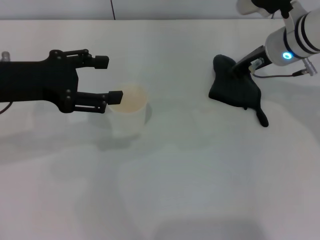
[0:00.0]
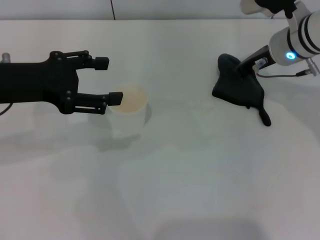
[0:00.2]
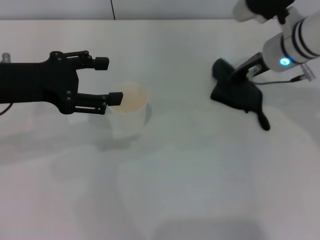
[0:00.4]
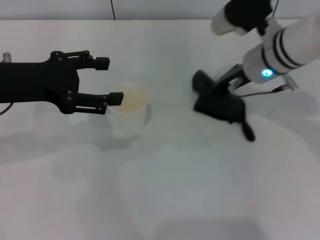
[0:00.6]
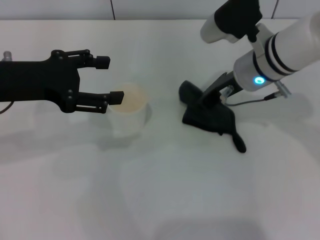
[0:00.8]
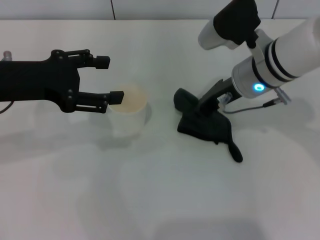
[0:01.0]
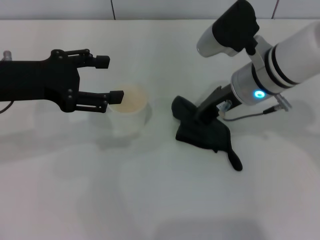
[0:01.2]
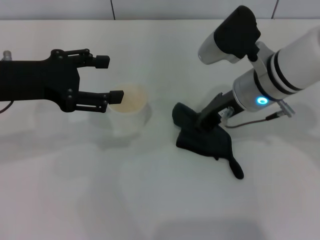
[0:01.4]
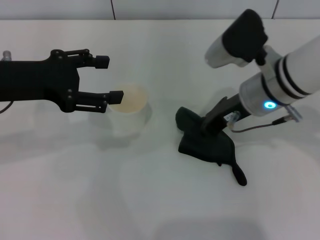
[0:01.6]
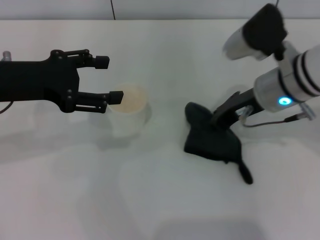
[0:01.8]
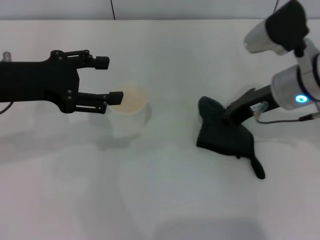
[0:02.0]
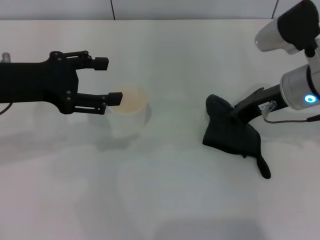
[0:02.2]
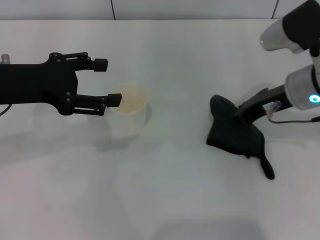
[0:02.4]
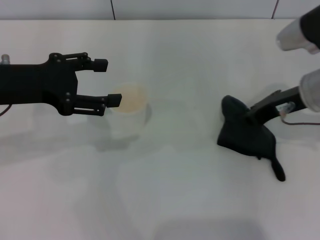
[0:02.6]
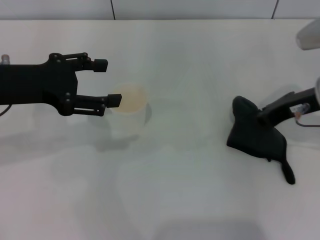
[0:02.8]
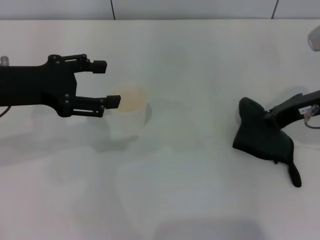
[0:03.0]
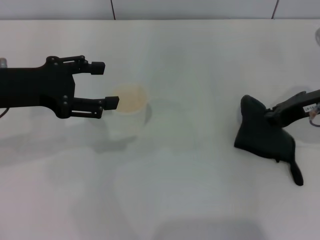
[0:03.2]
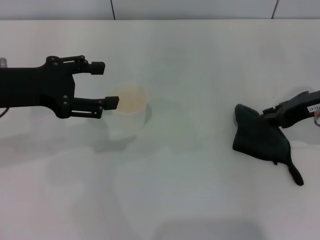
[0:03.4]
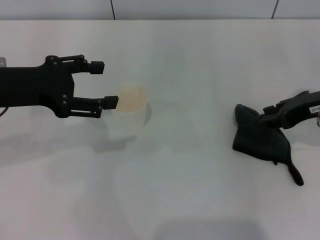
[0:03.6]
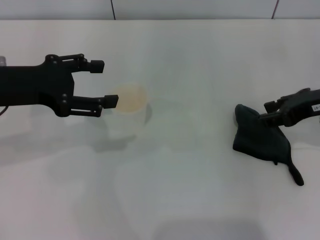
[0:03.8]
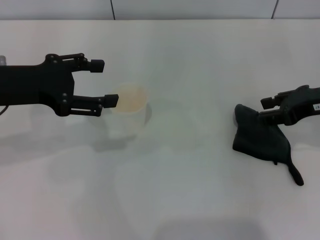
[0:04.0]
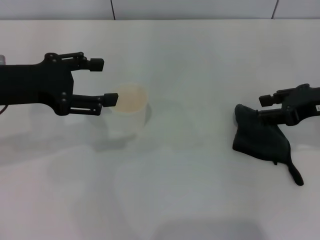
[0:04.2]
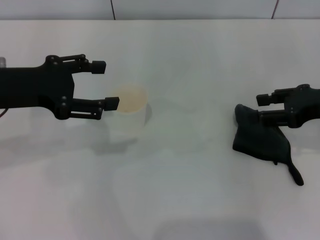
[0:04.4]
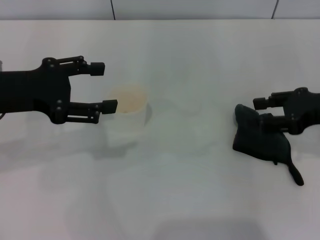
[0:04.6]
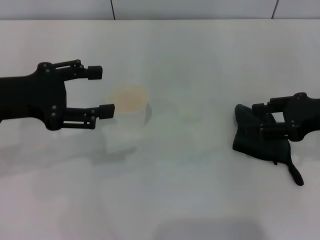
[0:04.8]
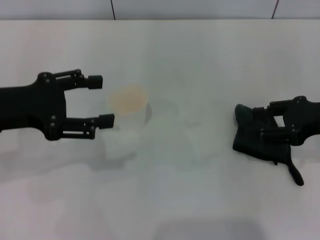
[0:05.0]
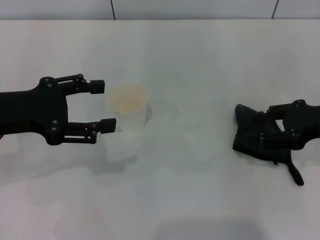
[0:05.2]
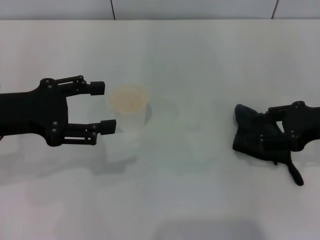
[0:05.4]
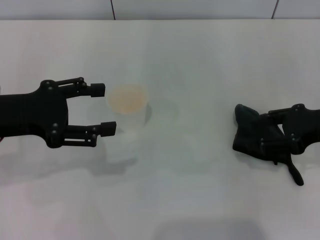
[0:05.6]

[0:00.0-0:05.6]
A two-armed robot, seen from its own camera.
Step, 0:01.0 to 0:03.8: Place the rag on the table with the right gripper.
0:00.0 to 0:01.4: The right gripper is displaced backward and to the left by roughly 10 cm.
0:01.4 to 0:02.8: The right gripper travels to the right by about 10 cm.
0:02.8 to 0:04.2: The right gripper opens its fingers.
0:04.2 to 0:05.6: There are only small adjustments of the grippers.

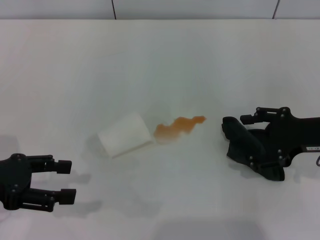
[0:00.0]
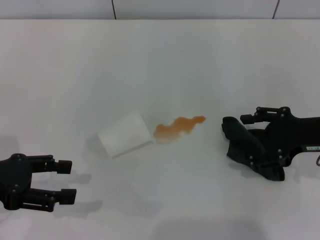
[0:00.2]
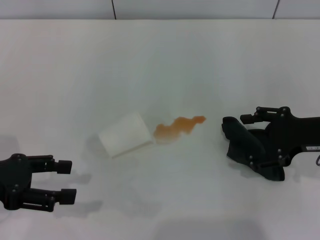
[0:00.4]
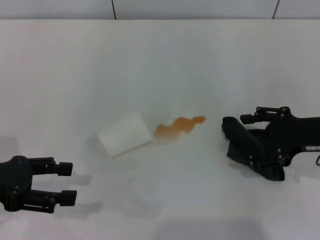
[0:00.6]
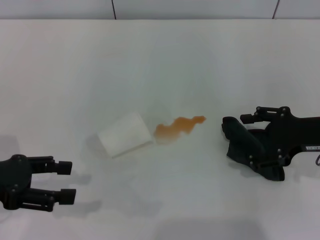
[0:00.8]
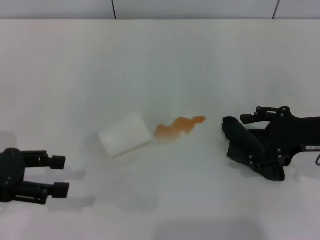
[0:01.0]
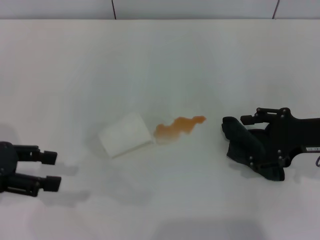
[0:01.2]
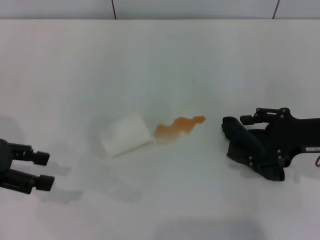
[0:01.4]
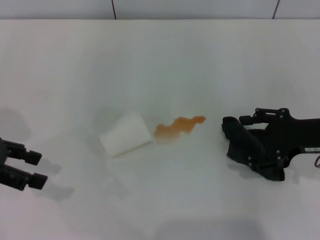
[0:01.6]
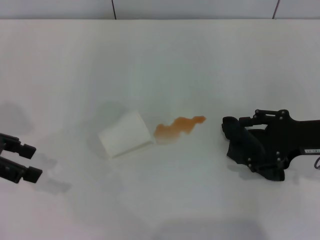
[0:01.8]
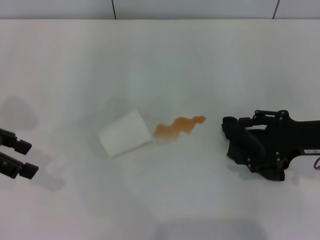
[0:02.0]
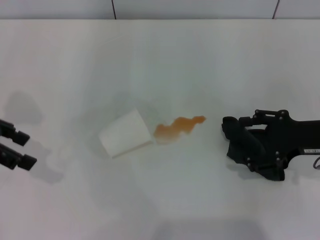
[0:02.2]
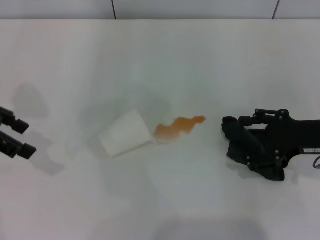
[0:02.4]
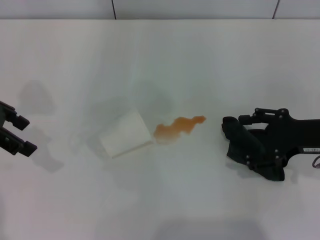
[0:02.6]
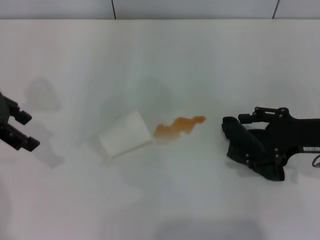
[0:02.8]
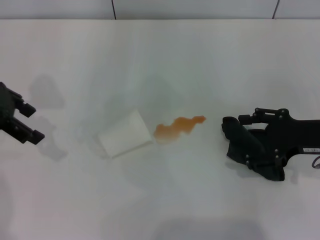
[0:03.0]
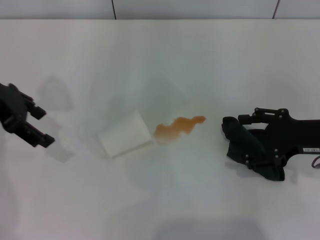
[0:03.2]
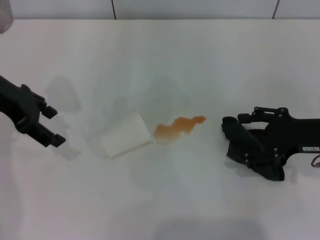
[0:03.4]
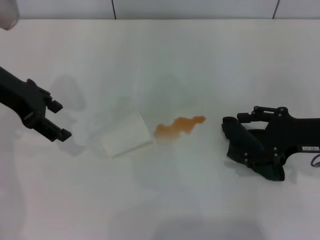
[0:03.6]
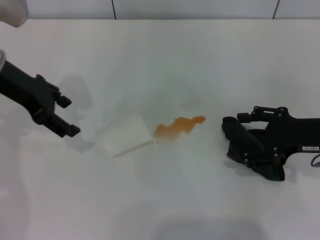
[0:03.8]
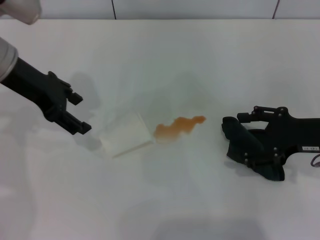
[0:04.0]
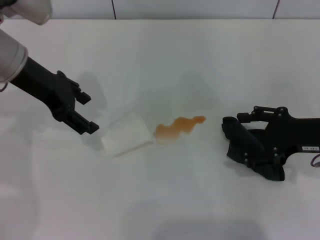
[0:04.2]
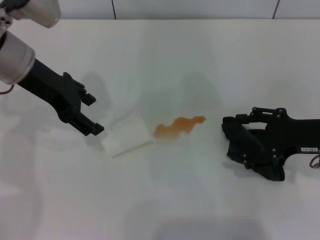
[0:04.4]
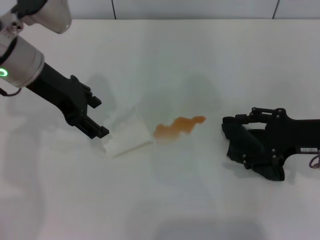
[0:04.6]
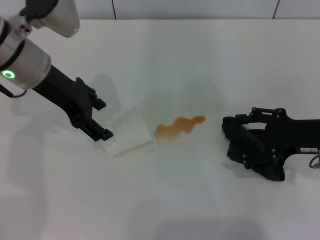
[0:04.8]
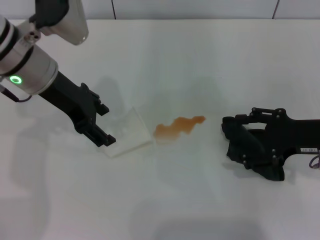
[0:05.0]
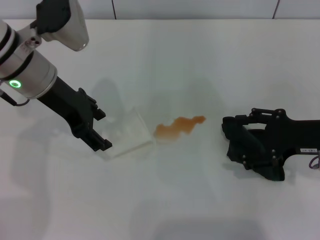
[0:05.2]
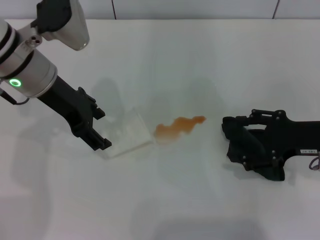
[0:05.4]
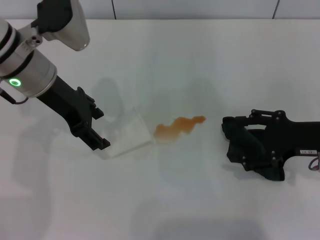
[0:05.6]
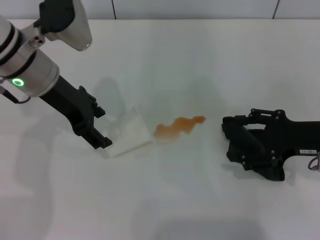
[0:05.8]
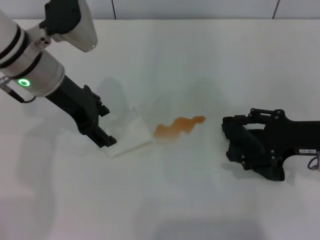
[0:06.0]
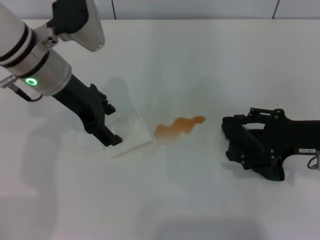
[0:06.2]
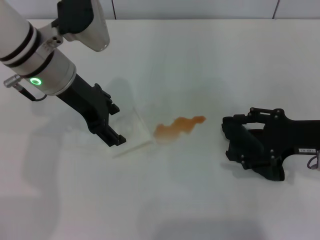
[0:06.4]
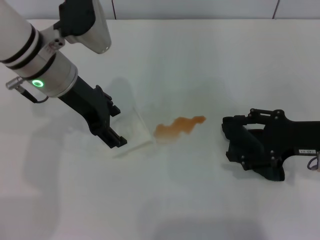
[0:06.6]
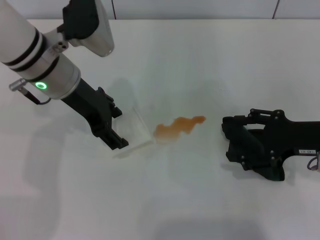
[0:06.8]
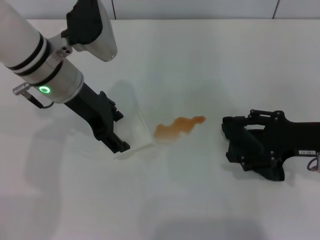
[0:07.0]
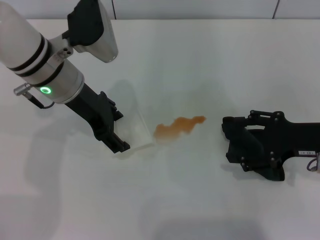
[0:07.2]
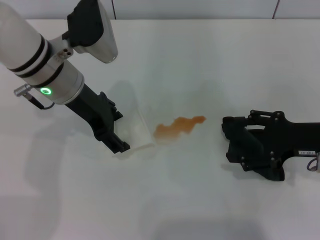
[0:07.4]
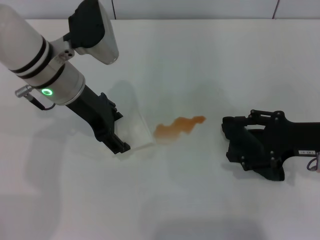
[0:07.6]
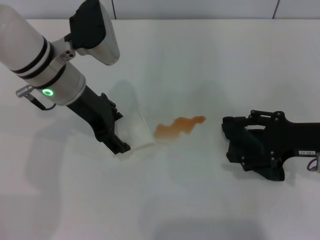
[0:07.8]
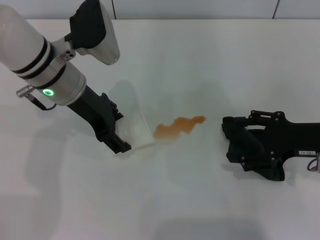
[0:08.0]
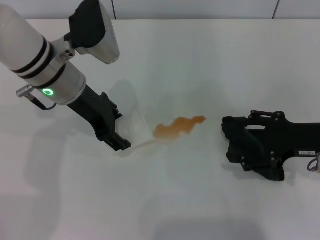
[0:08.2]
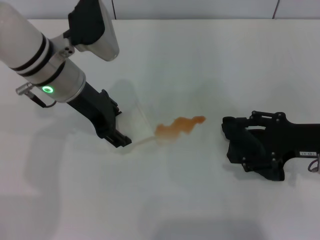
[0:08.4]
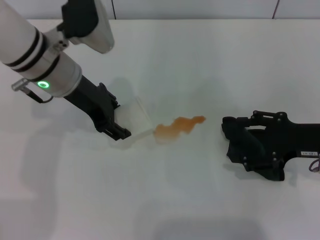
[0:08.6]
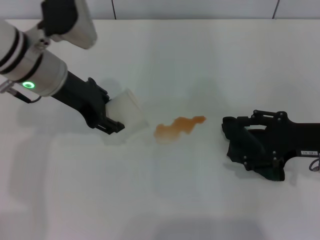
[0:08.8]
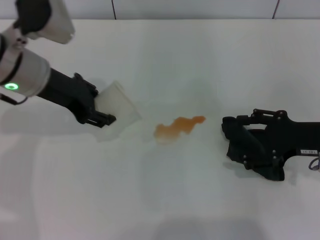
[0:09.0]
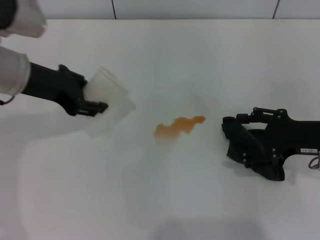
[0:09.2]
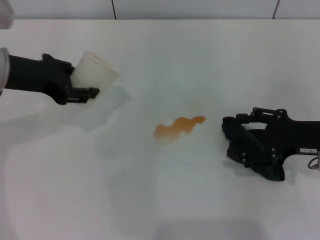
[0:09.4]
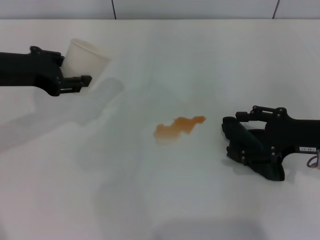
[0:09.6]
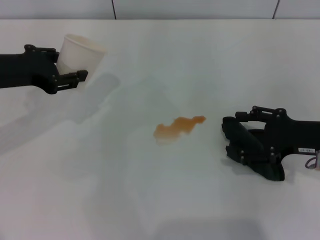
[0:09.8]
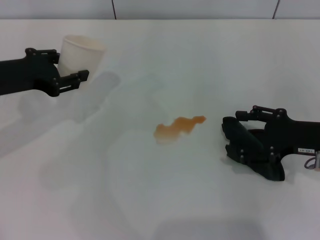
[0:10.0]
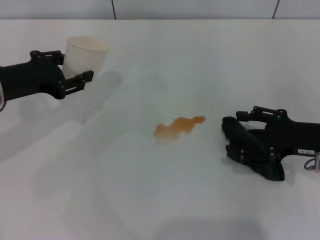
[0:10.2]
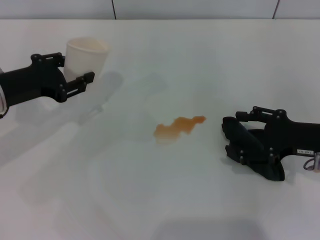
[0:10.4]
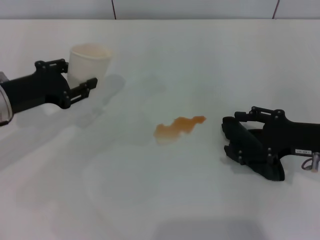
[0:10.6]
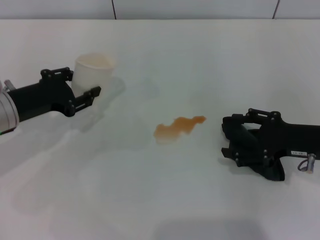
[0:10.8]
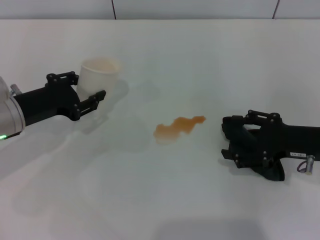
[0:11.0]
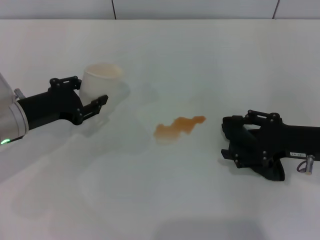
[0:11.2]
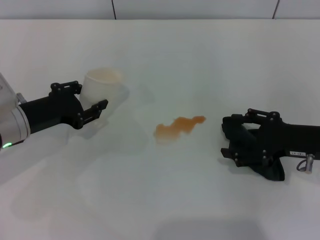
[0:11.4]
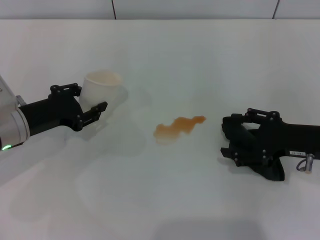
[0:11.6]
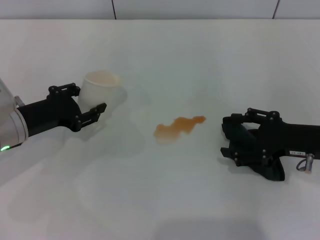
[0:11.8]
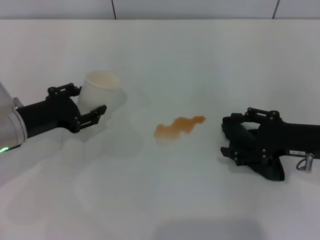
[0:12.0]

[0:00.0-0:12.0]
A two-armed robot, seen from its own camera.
Step, 0:00.0 to 0:08.0: Grasp the paper cup with the left gripper.
0:00.0 to 0:01.6: The left gripper travels forward by about 5 cm.
0:01.6 to 0:03.0: The left gripper moves forward, roughly 5 cm.
0:03.0 to 0:04.4: The left gripper shifts some 10 cm to the right.
0:04.4 to 0:06.0: There are only small adjustments of the grippers.
0:06.0 to 0:07.6: There are only small adjustments of the grippers.
0:07.6 to 0:09.0: The left gripper shifts by approximately 5 cm, and closes up.
0:09.0 to 0:10.4: The left gripper is displaced to the left and downward by approximately 10 cm.
0:10.4 to 0:12.0: The left gripper is displaced downward by approximately 5 cm.

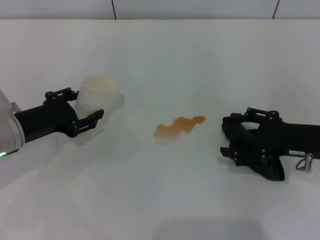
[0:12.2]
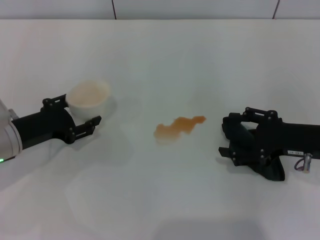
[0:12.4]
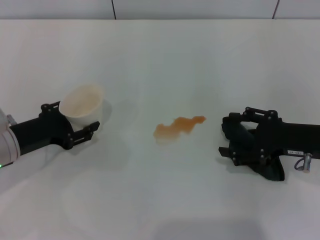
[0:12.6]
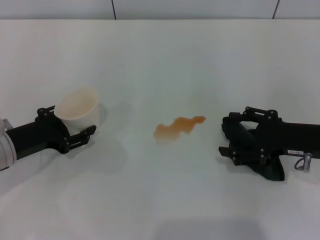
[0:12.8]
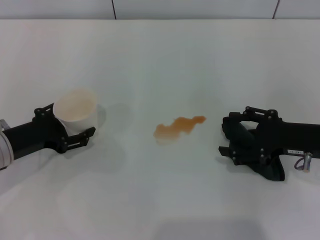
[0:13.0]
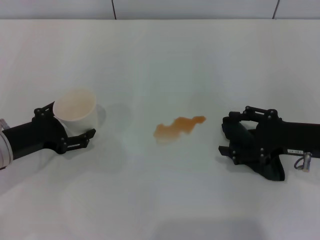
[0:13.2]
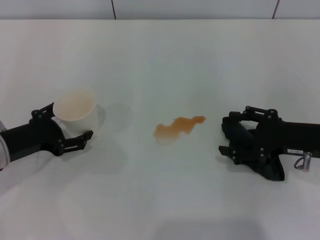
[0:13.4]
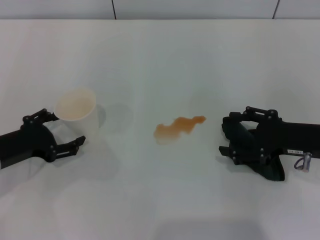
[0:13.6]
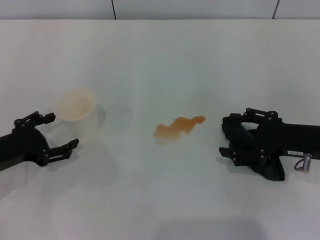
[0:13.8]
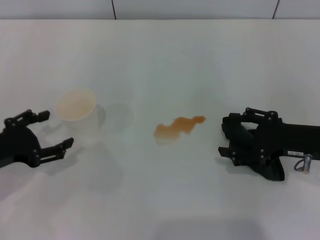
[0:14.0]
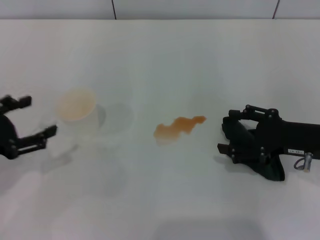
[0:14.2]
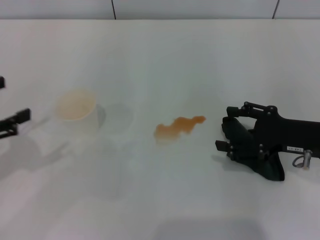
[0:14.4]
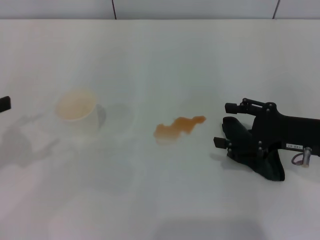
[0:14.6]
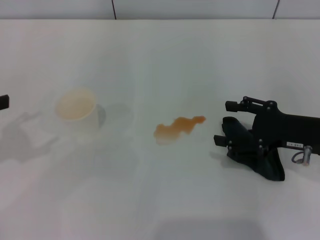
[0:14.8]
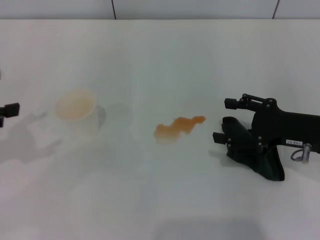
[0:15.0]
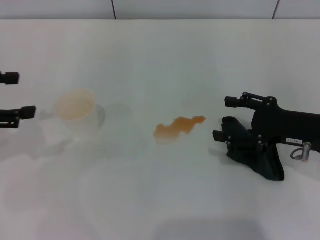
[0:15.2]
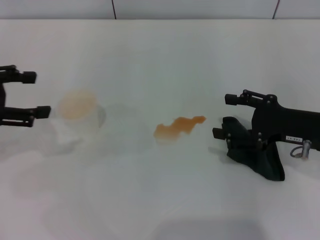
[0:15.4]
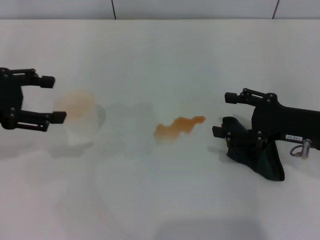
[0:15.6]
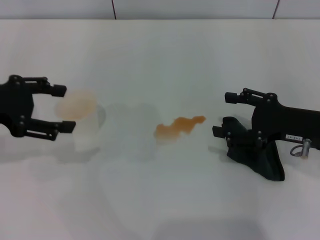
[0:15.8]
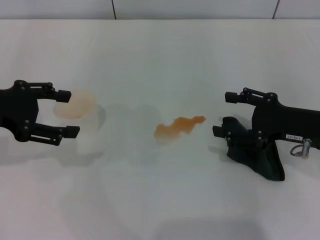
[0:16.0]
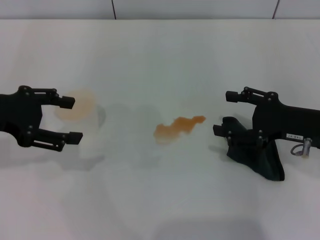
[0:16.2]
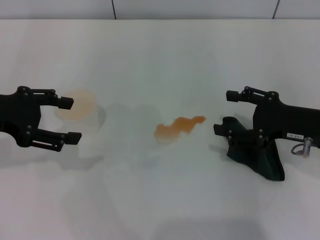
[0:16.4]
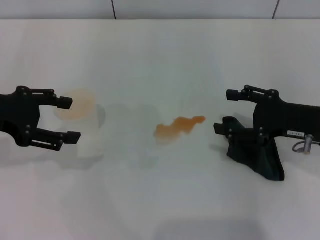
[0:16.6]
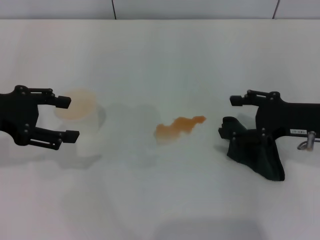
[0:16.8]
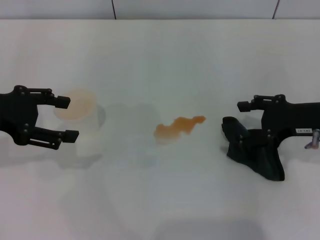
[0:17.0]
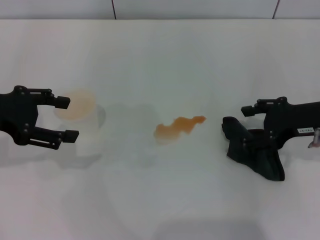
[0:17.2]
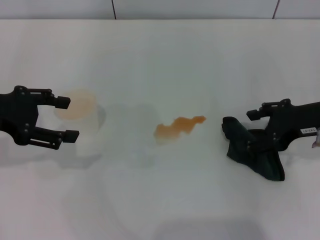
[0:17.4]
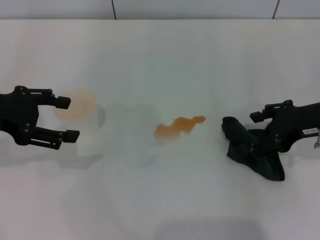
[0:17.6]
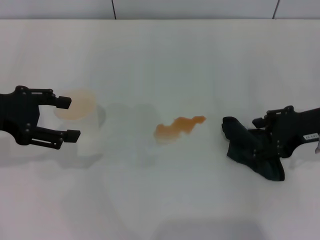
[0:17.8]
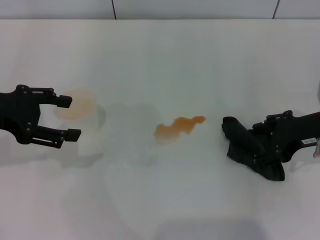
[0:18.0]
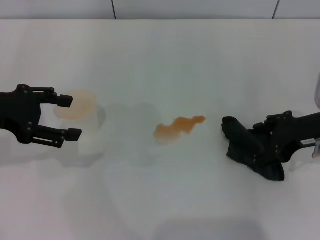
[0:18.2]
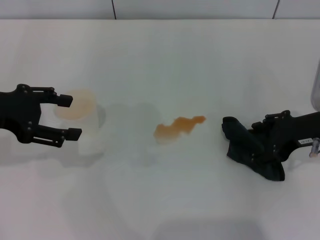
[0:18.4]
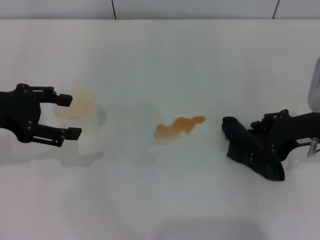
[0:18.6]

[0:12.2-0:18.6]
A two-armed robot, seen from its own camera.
0:12.2 to 0:13.8: The left gripper moves about 5 cm, and opens its fingers.
0:13.8 to 0:15.4: The left gripper goes about 15 cm upward.
0:15.4 to 0:17.0: The grippers move only a little.
0:17.0 to 0:18.6: The grippers move only a little.
